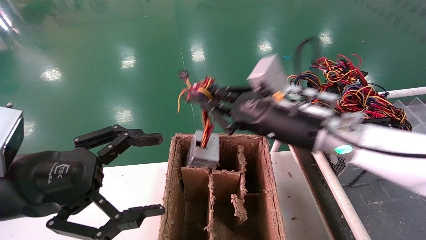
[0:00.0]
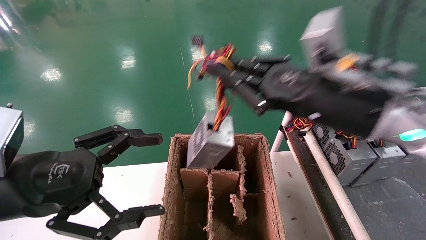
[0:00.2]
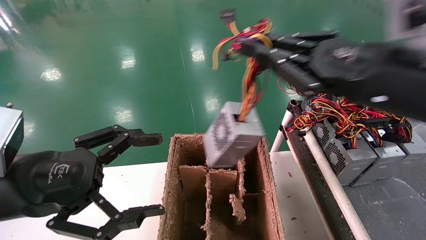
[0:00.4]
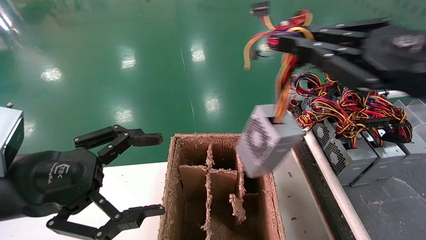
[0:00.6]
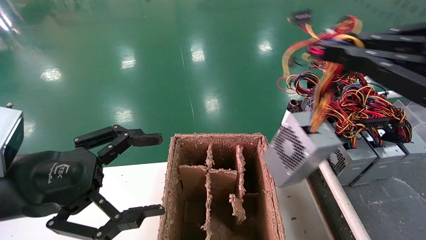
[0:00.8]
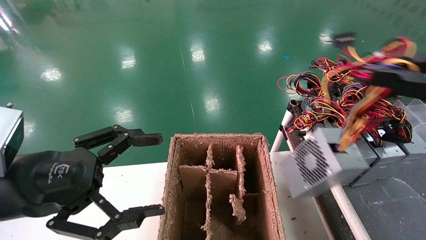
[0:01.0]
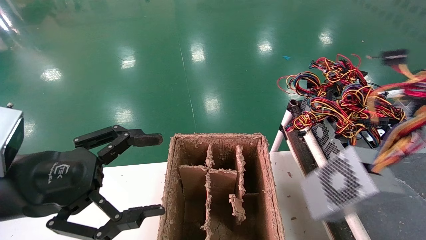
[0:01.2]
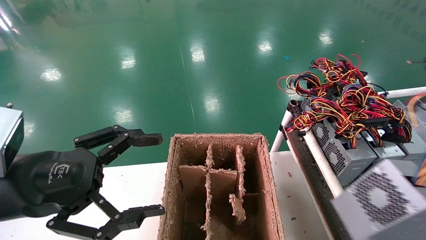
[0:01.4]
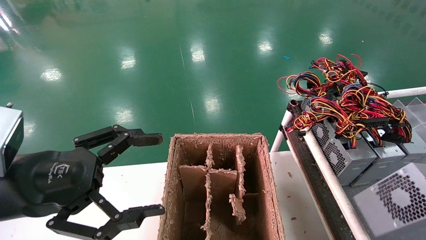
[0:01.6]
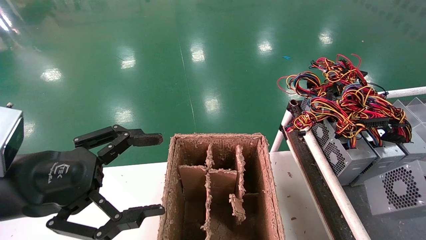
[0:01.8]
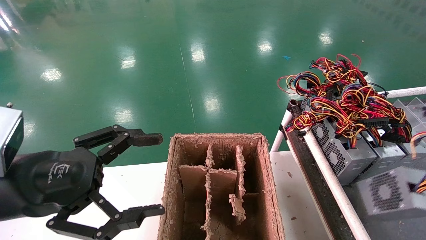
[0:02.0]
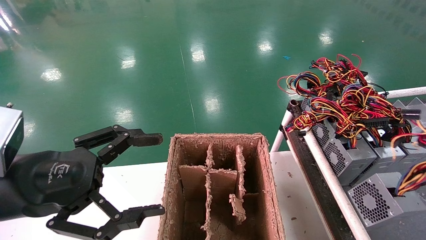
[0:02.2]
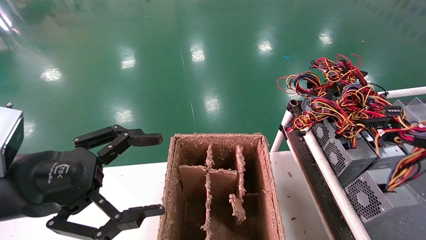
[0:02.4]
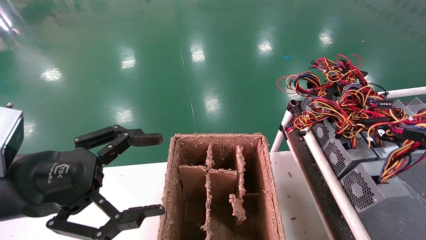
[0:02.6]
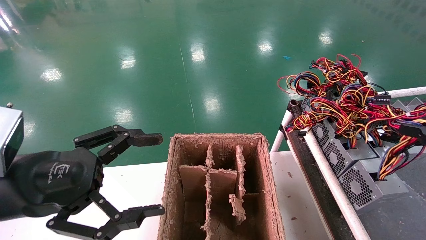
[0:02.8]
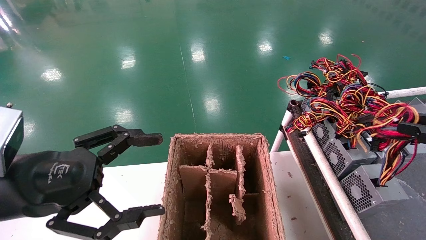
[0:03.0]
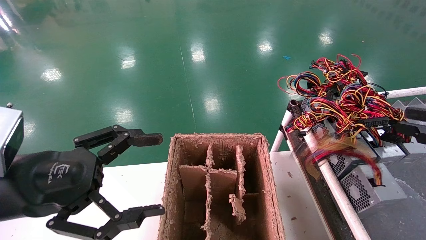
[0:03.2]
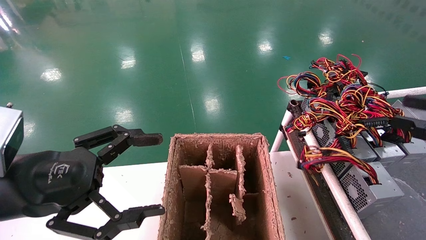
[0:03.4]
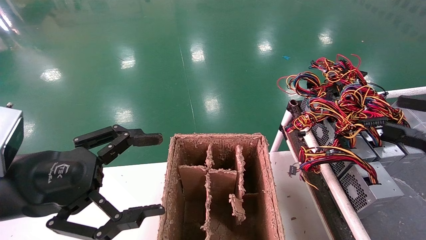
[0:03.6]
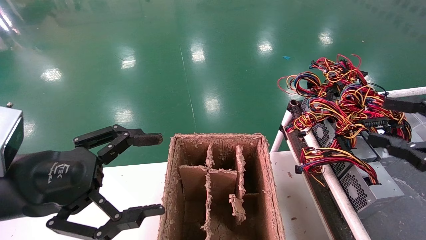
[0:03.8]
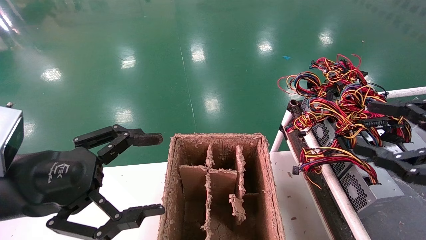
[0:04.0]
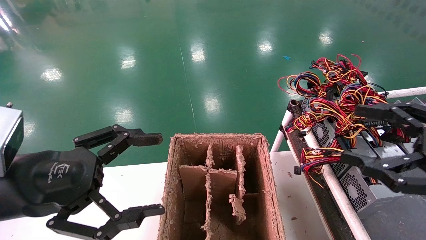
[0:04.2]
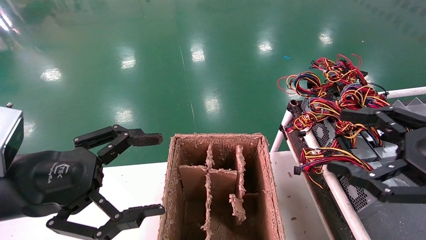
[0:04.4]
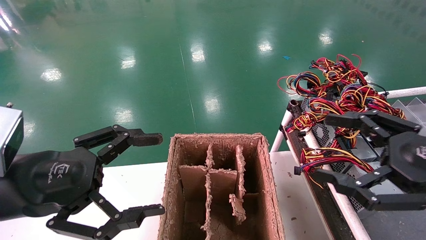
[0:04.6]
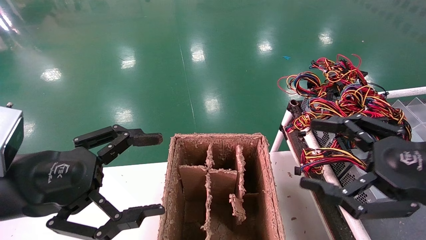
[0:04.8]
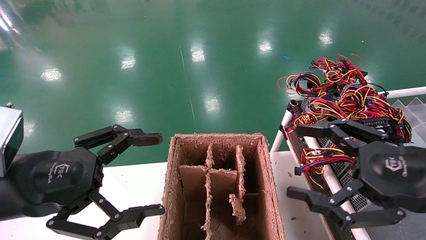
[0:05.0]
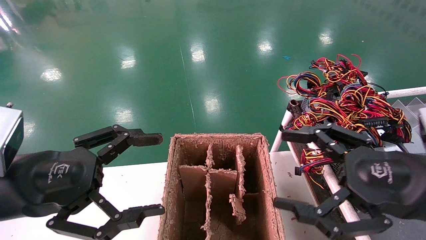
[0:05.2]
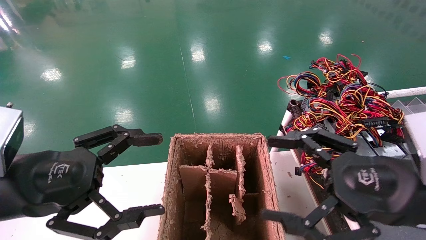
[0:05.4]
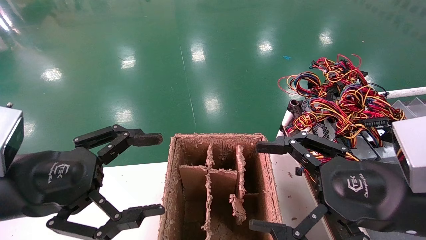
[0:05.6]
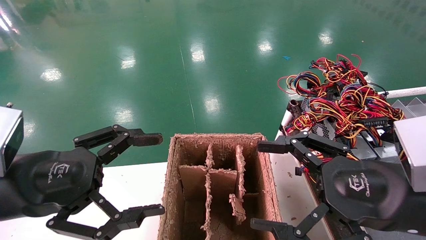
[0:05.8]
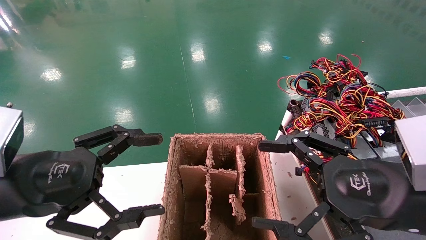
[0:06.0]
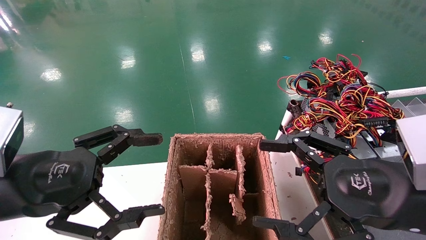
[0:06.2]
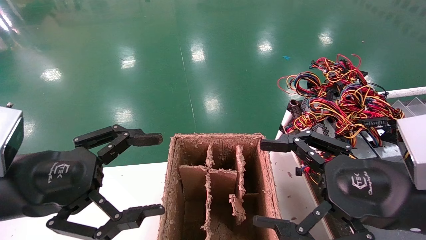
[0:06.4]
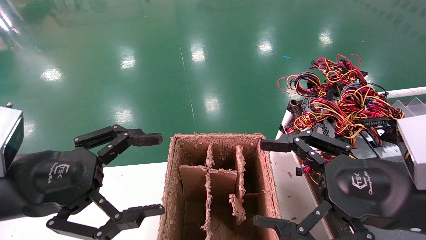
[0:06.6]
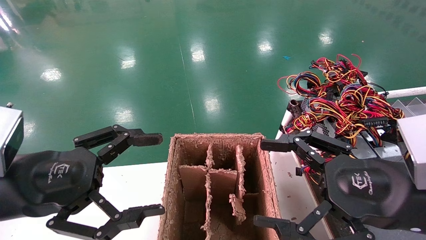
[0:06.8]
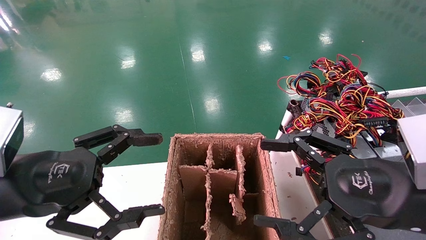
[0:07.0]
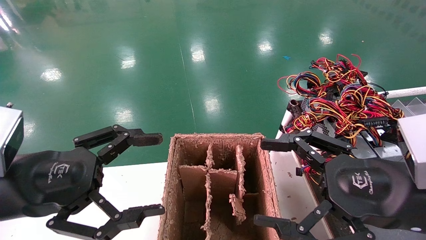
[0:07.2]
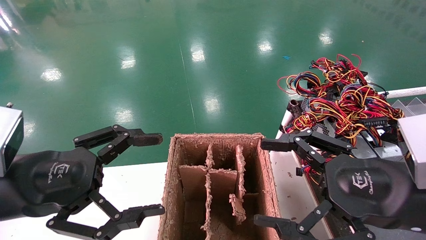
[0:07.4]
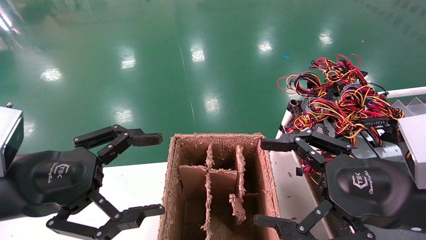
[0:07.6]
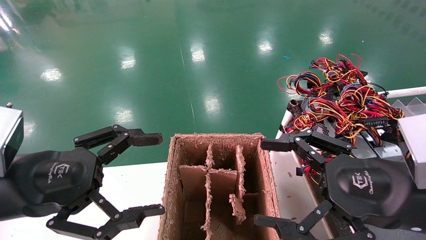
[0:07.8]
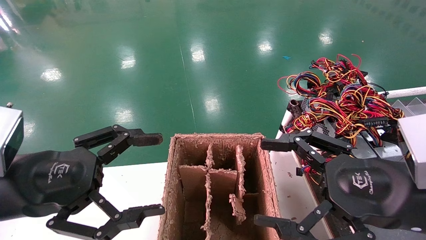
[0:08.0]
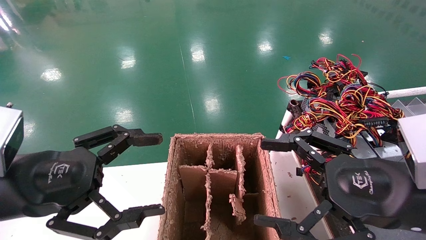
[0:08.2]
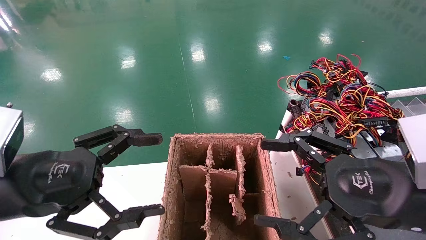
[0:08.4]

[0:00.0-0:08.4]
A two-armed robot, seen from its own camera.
Step, 0:00.0 to 0:03.6: Place the power supply on the operating table.
0:00.0 to 0:01.4: The right gripper goes some 35 cm to the right and backward.
0:01.4 to 0:02.8: The right gripper shifts roughly 10 cm forward and downward.
0:02.8 to 0:04.2: The right gripper goes about 5 cm to the left, and opens its fingers.
0:04.2 to 0:05.6: The right gripper goes approximately 10 cm to the left.
0:05.6 to 0:08.4: Both grippers stay put.
